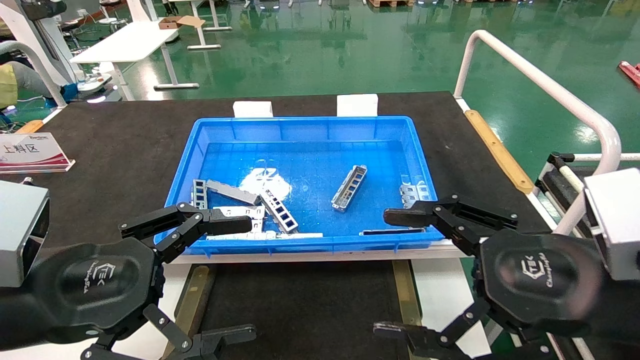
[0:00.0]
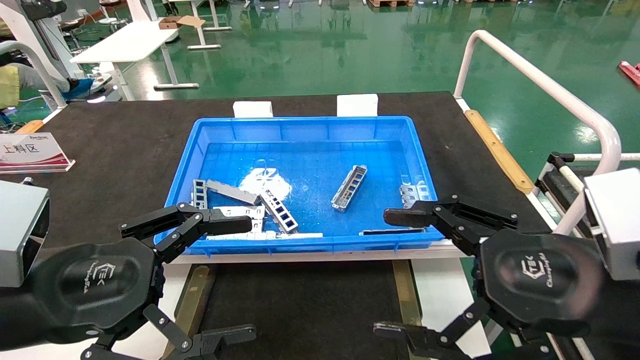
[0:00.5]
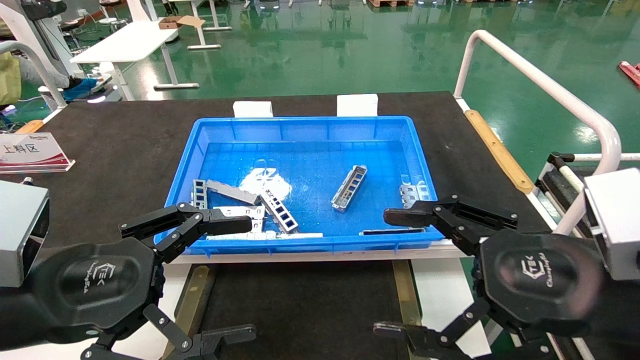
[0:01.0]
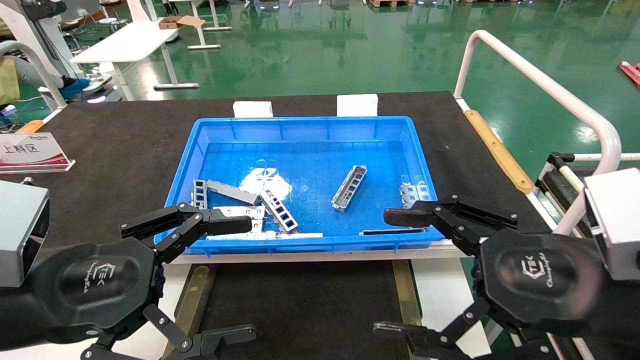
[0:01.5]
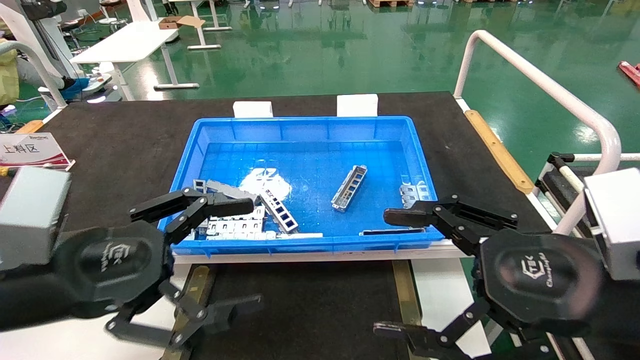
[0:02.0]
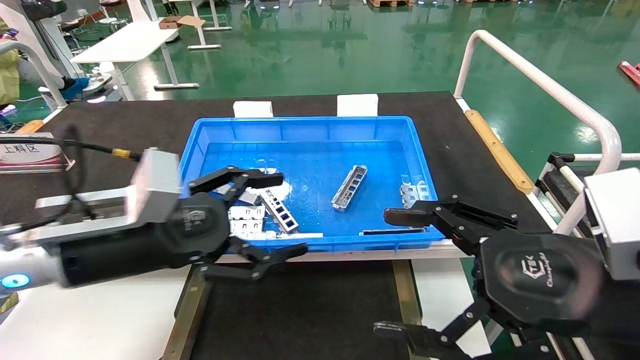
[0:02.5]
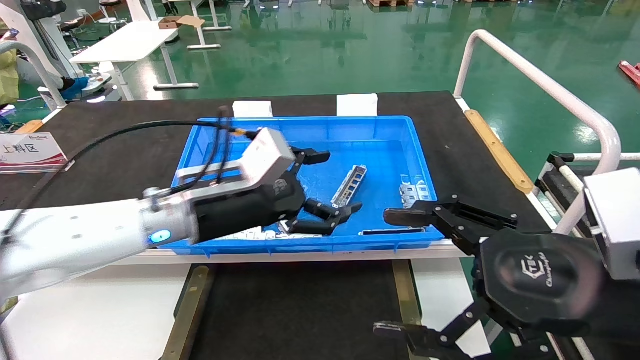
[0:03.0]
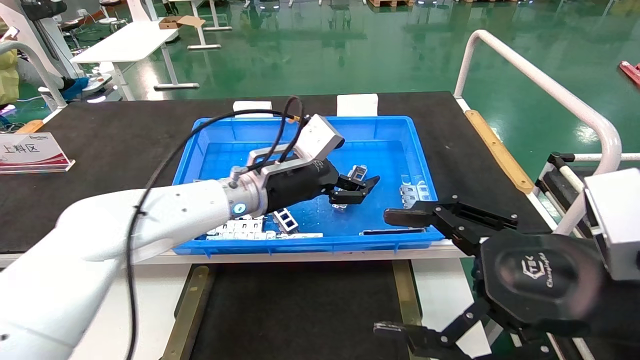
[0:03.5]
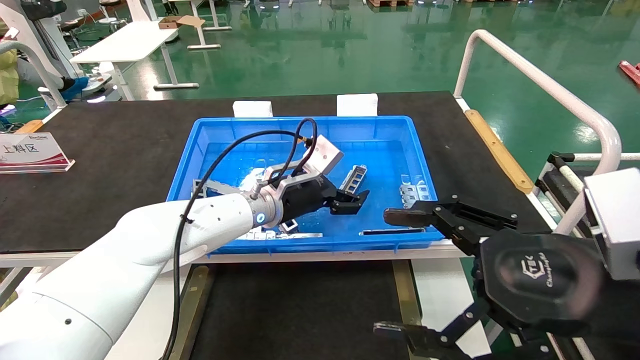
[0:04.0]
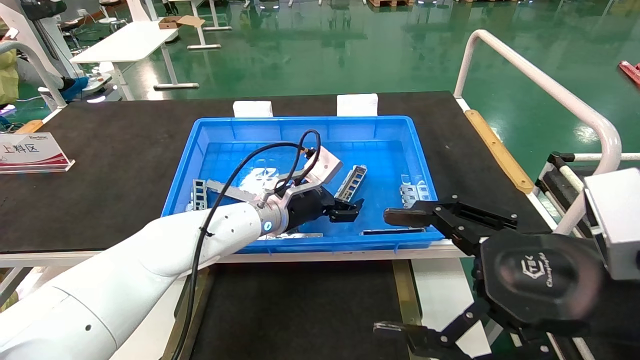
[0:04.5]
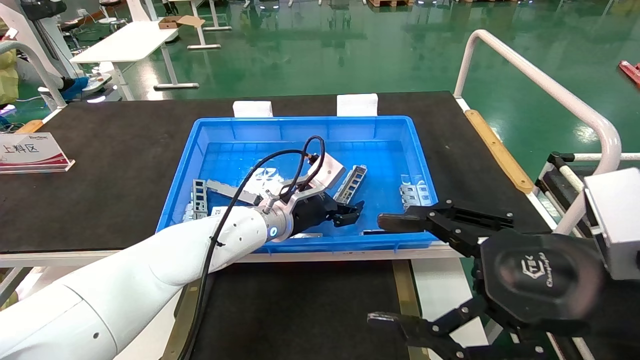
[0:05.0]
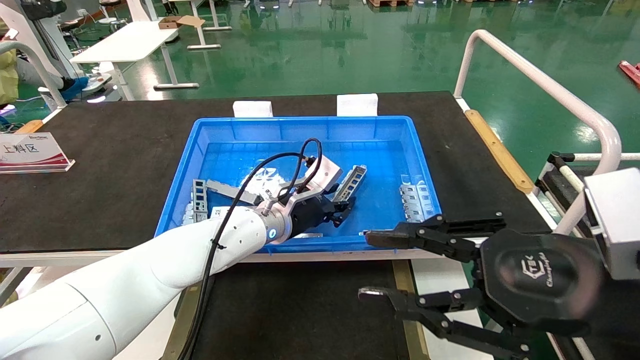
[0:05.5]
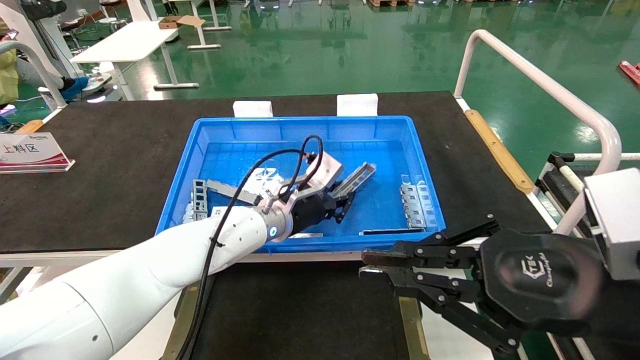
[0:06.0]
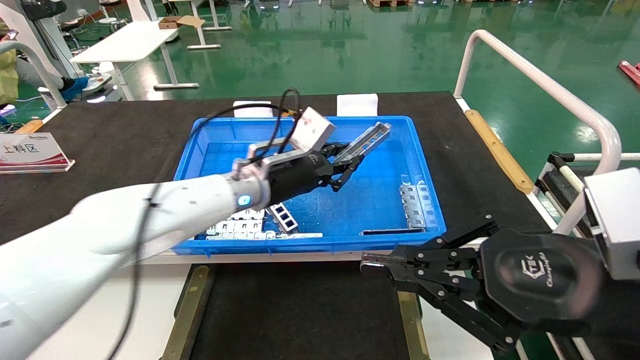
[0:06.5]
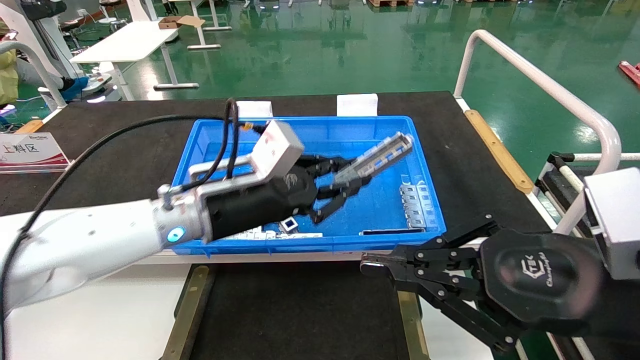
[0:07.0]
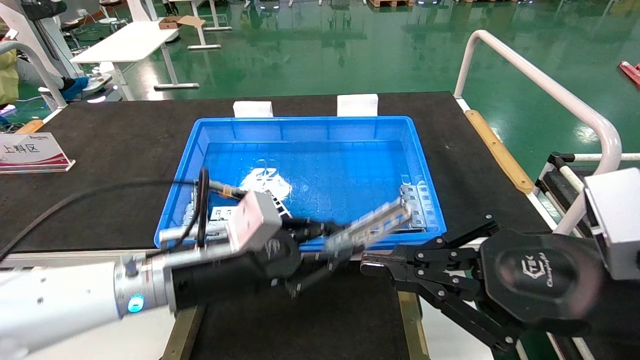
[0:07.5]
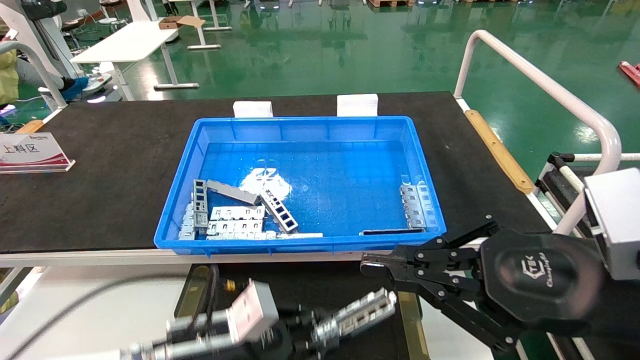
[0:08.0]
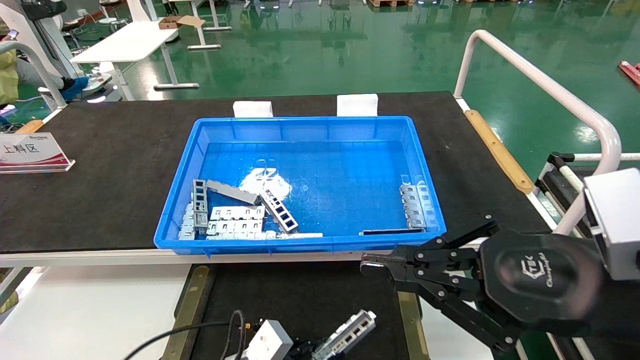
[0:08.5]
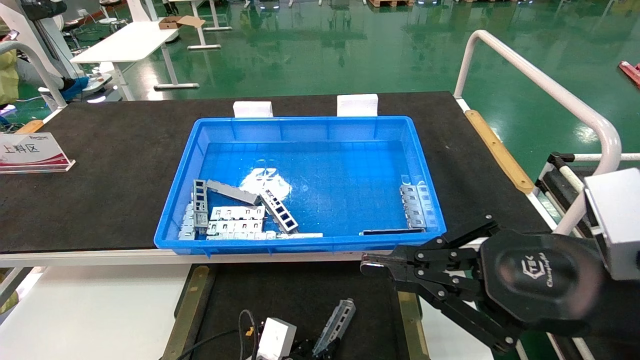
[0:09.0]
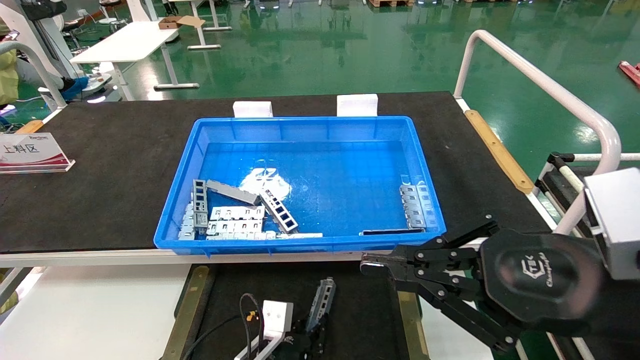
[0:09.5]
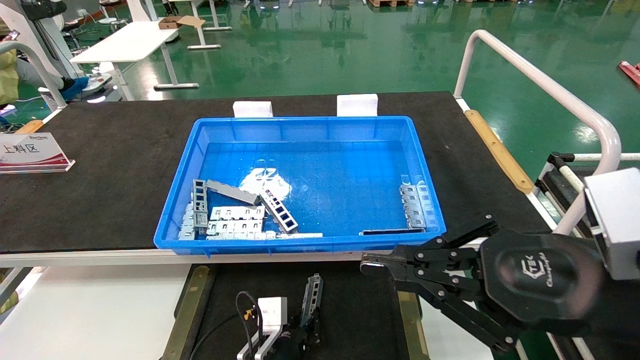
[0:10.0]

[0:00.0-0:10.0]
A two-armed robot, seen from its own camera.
Task of the whole recording: Grasp the part with one hand and place it on the black container.
Step, 0:02.5 to 0:05.5: Pick up the front USB bracket from the feeding area.
0:00.0 to 0:02.0: The grippers make only small movements.
0:02.0 to 0:04.0: The left gripper is displaced forward and to the right by some 30 cm.
0:04.0 to 0:06.0: The right gripper closes. The left gripper closes its fingers.
0:06.0 to 0:08.0: The left gripper travels backward, downward and to the left by some 25 cm.
0:08.0 to 0:10.0: The left gripper heads downward, to the right and forward, covering about 15 cm.

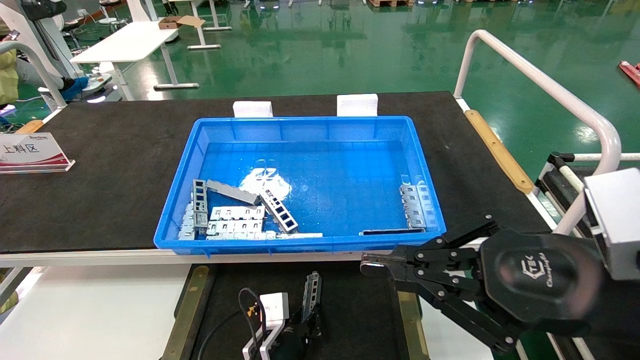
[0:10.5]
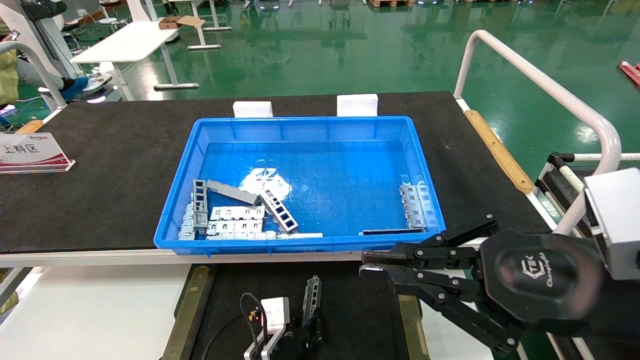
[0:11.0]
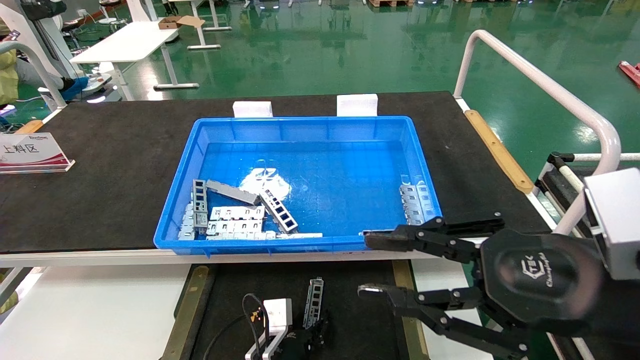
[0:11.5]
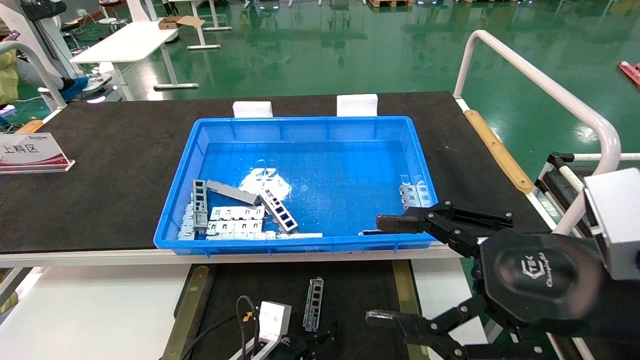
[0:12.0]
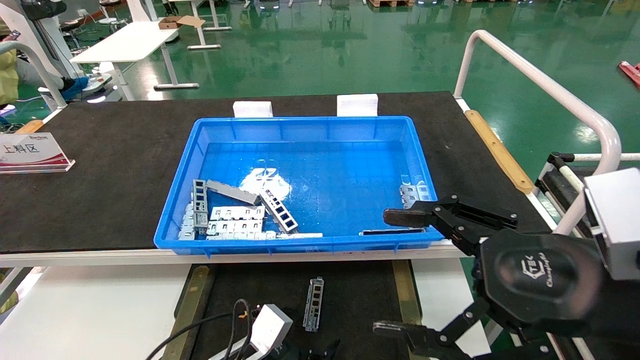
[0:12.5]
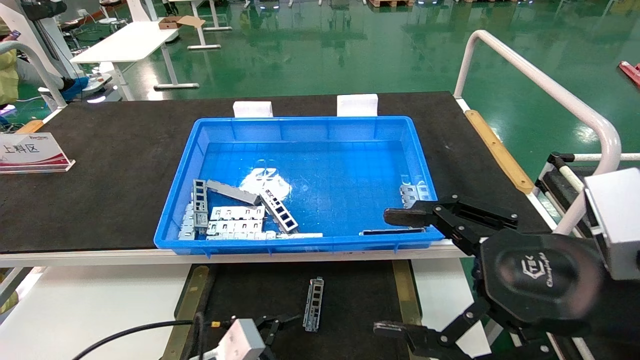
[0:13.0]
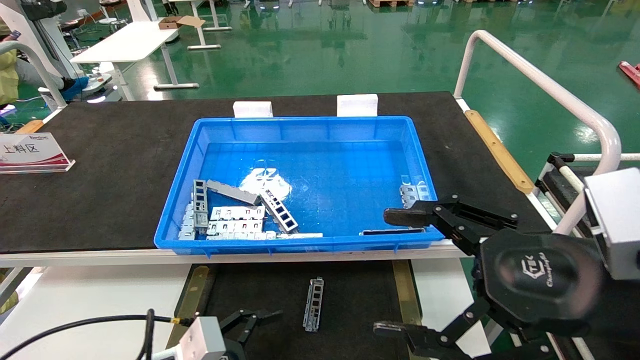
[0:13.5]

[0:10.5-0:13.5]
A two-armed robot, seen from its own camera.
Task of the whole recording: Grasp the part with one hand and place it on the black container.
0:10.5 to 0:12.0: The left gripper opens; the right gripper opens up.
0:12.0 to 0:13.5: The right gripper opens, while the left gripper is displaced to the left, upward and backward by approximately 15 cm.

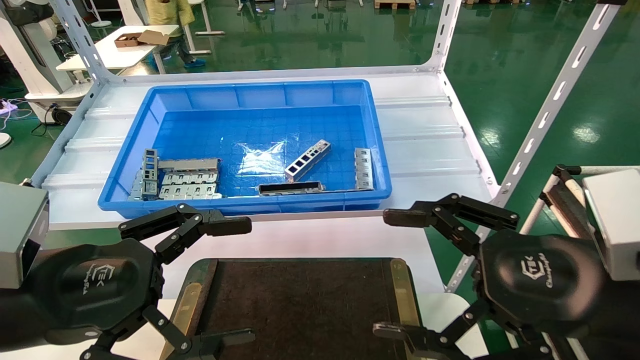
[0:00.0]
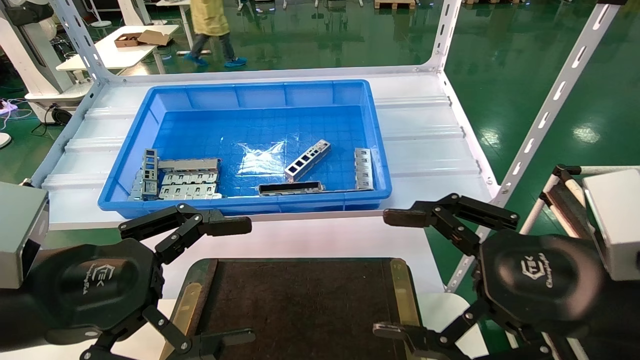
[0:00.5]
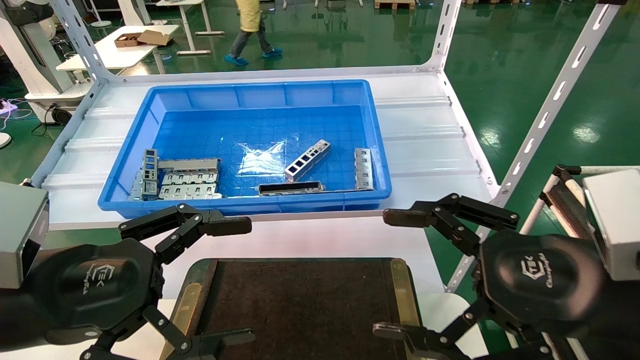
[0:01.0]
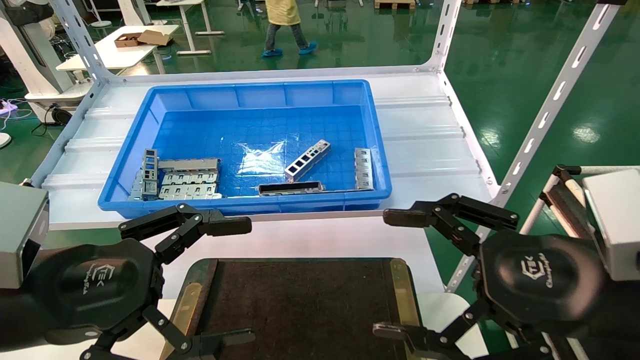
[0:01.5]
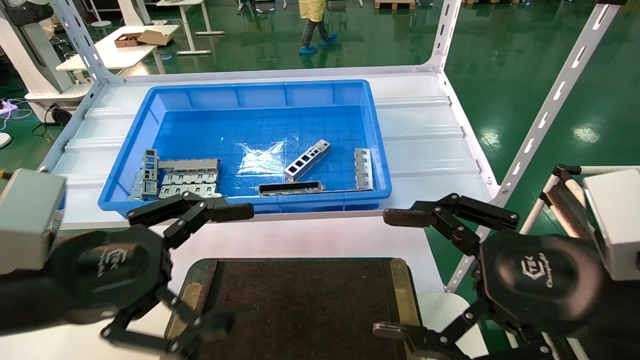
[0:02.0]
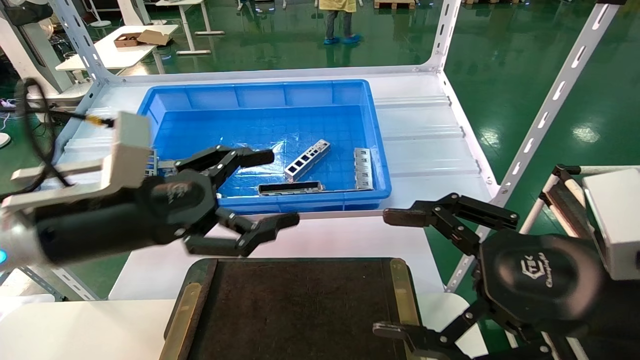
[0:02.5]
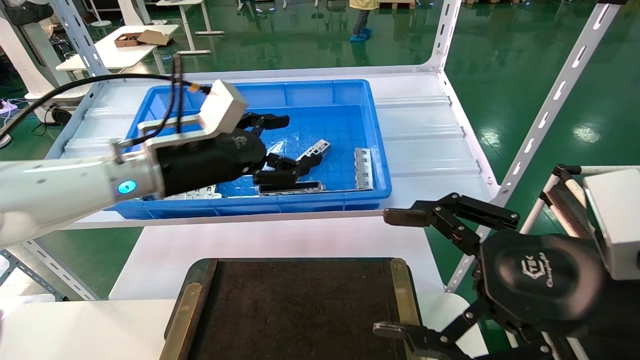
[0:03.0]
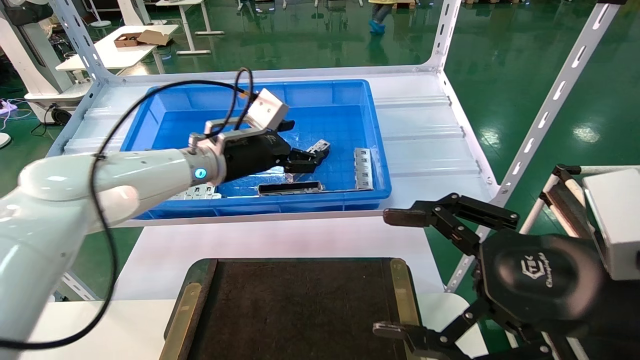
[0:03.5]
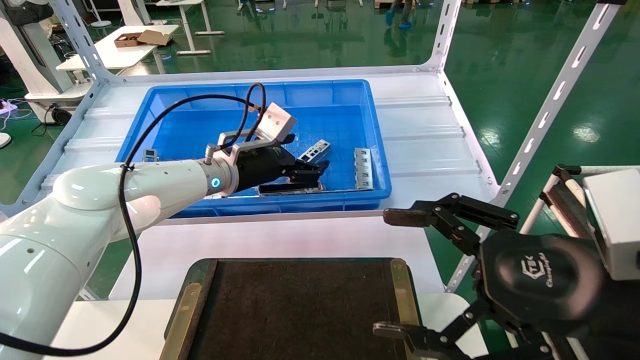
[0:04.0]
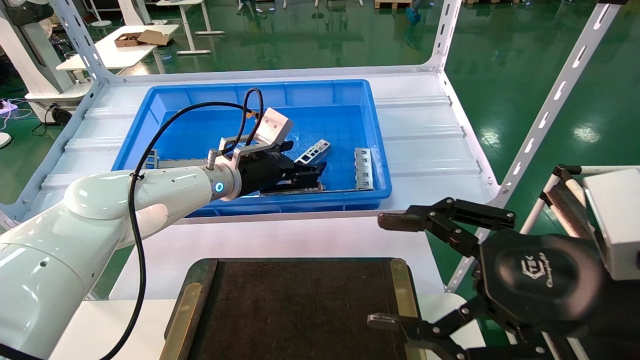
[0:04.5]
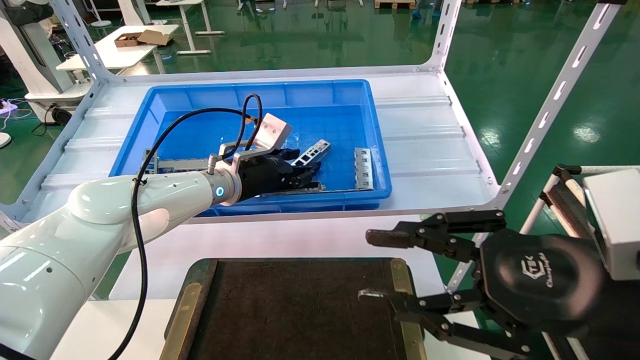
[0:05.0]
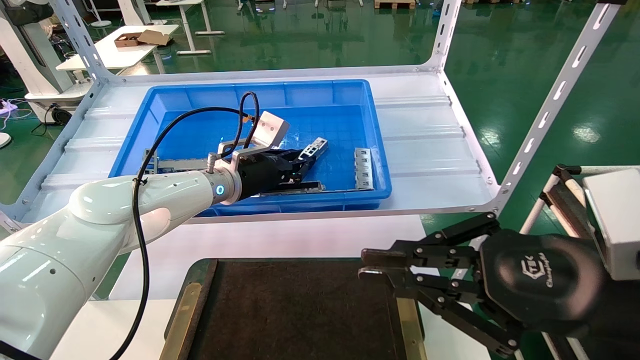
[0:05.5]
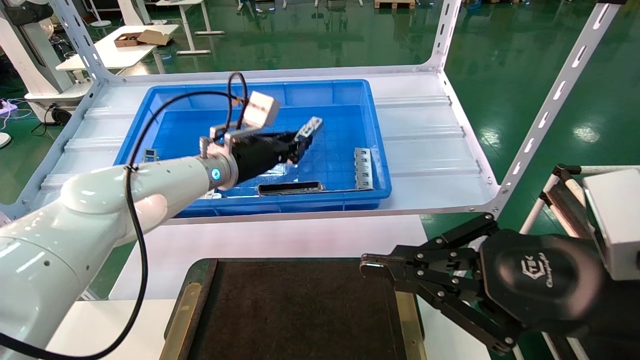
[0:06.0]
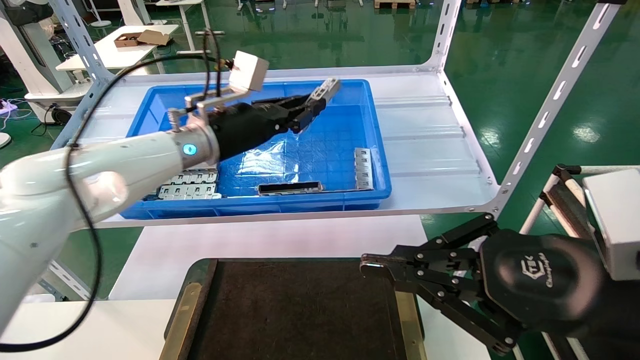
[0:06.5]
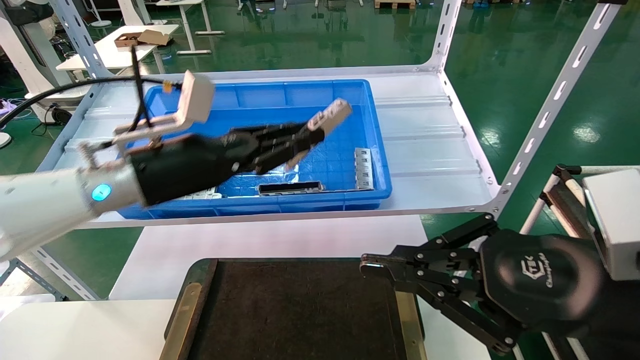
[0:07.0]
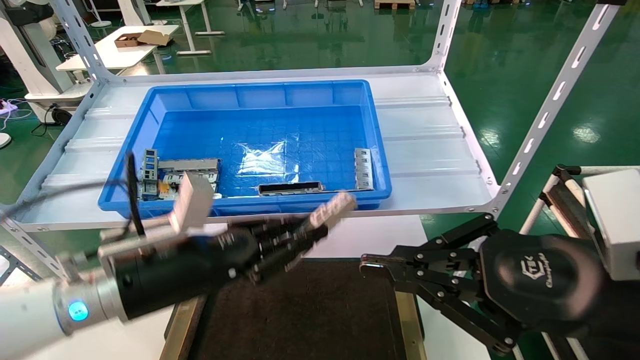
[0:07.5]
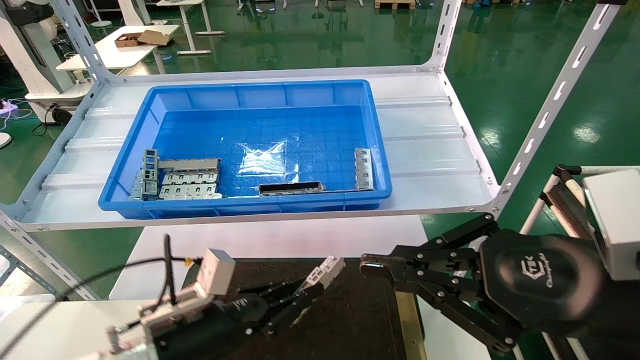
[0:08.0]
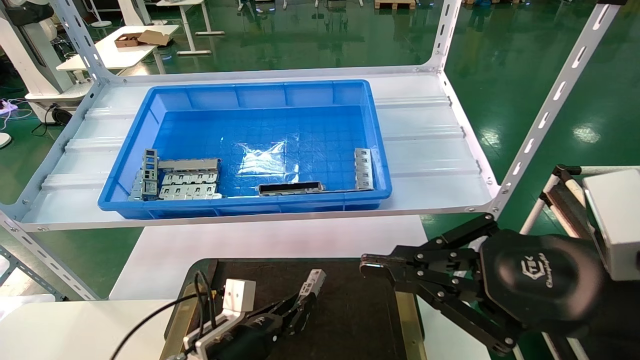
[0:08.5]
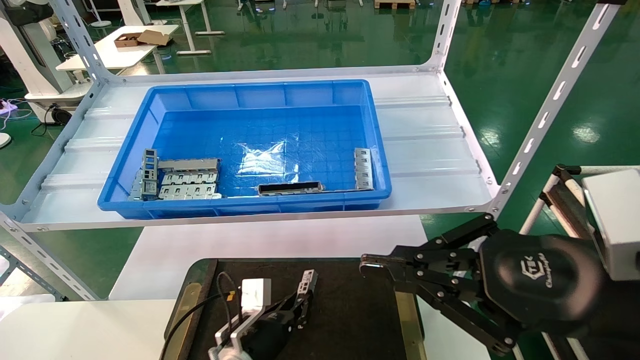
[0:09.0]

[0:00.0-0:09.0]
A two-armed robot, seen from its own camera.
Task of the whole recording: Grasp the part with one hand and place it on the black container.
Step, 0:02.0 to 0:05.0: Pick up the front USB bracket from the feeding area.
0:00.0 to 0:02.0: The grippers move only a little.
0:02.0 to 0:04.5: The left gripper heads forward and to the right, covering roughly 30 cm.
0:04.5 to 0:07.0: The right gripper closes up; the left gripper is displaced backward and to the left by roughly 15 cm, and closes up.
0:07.0 to 0:09.0: The left gripper shifts roughly 30 cm downward.
